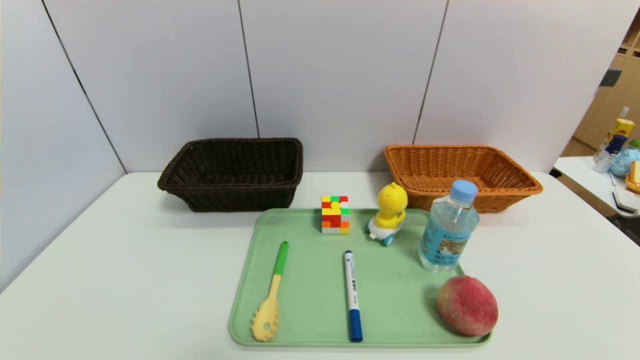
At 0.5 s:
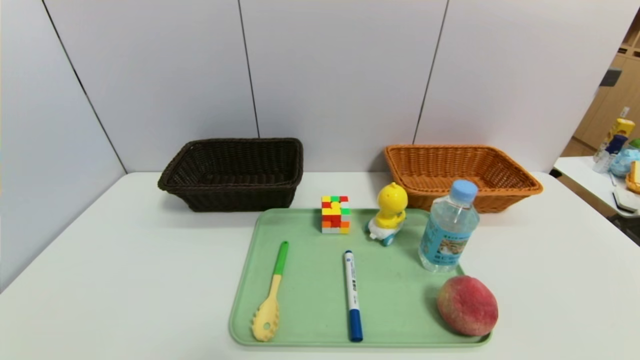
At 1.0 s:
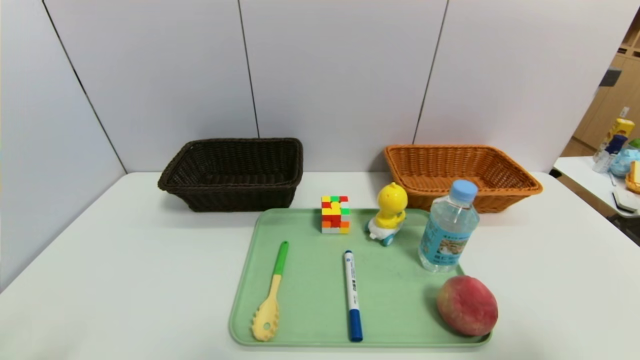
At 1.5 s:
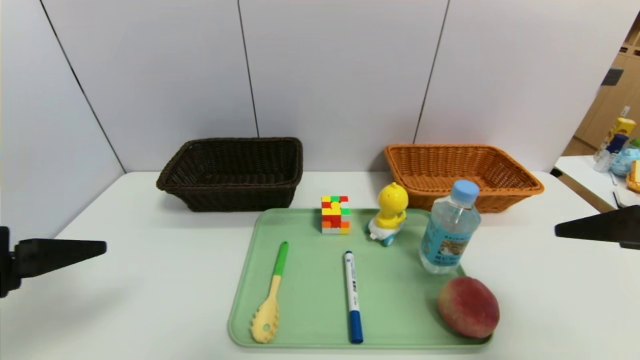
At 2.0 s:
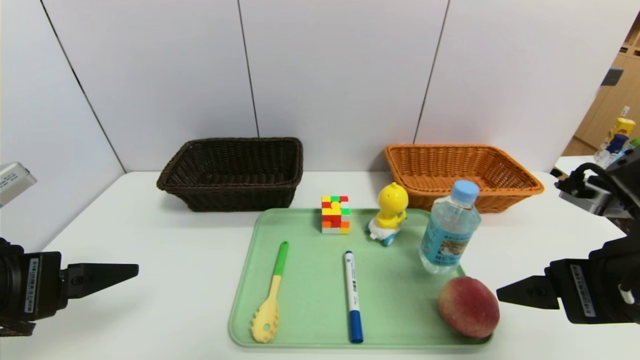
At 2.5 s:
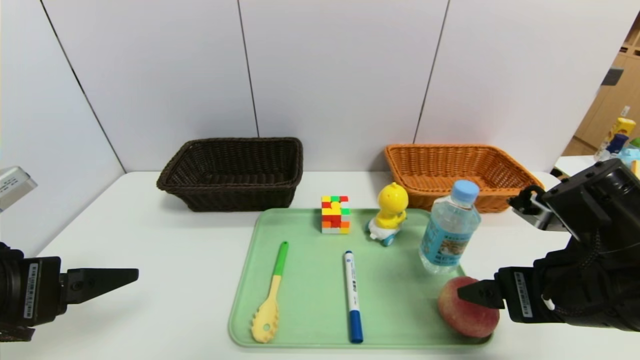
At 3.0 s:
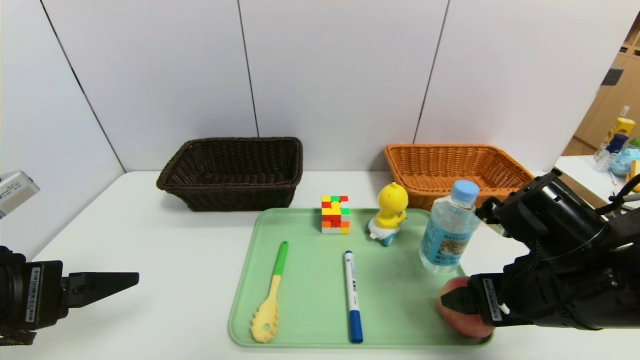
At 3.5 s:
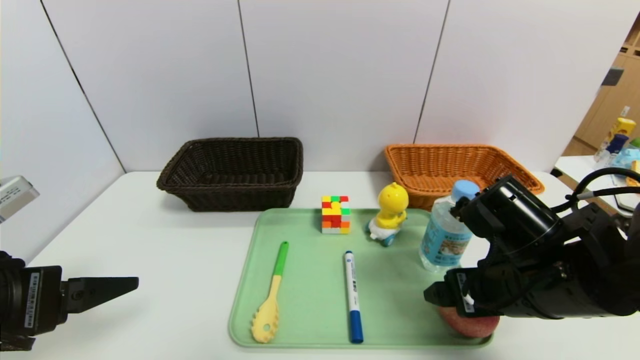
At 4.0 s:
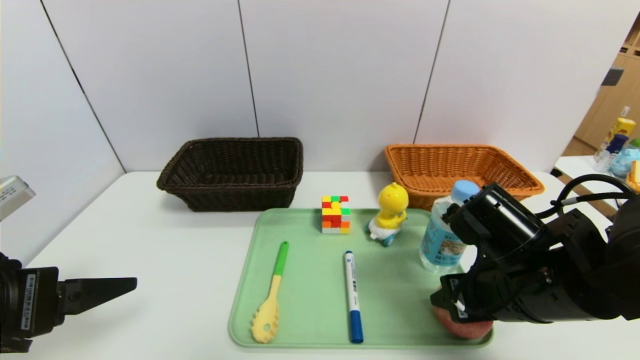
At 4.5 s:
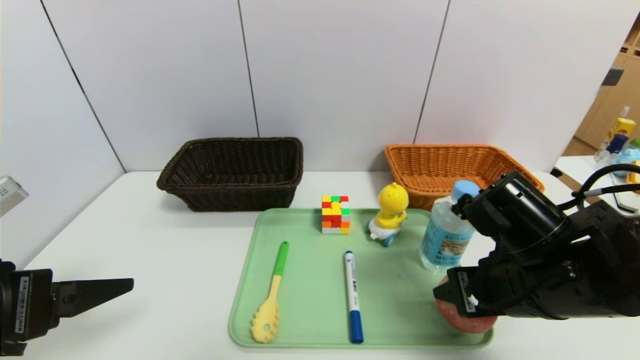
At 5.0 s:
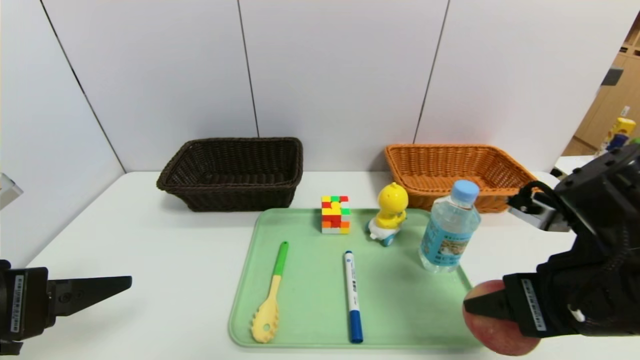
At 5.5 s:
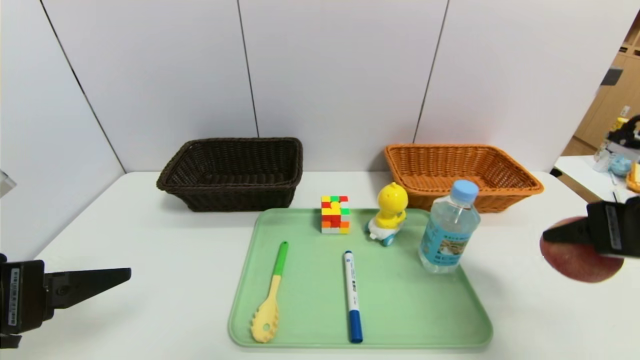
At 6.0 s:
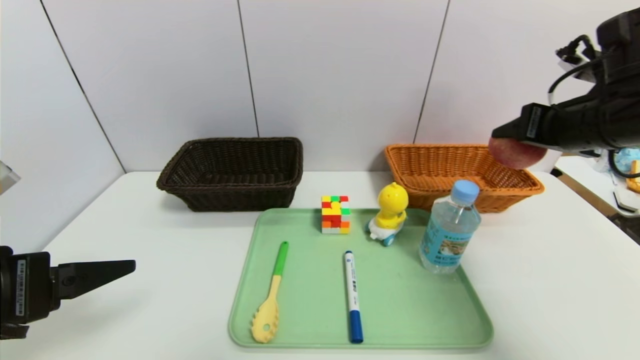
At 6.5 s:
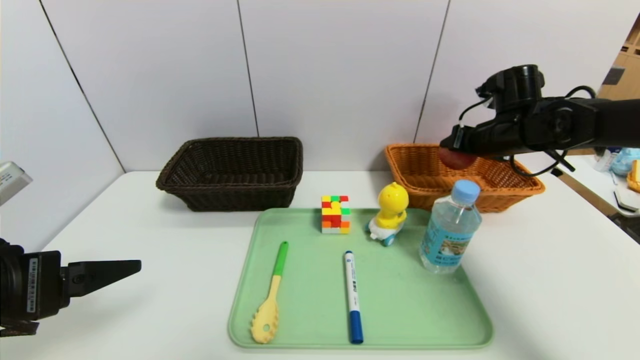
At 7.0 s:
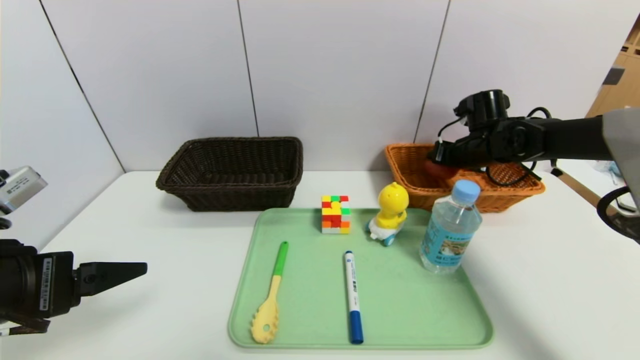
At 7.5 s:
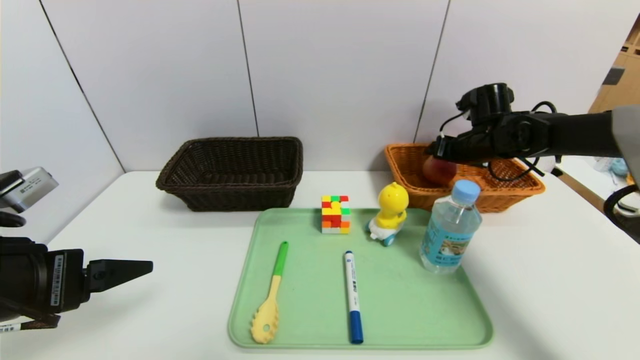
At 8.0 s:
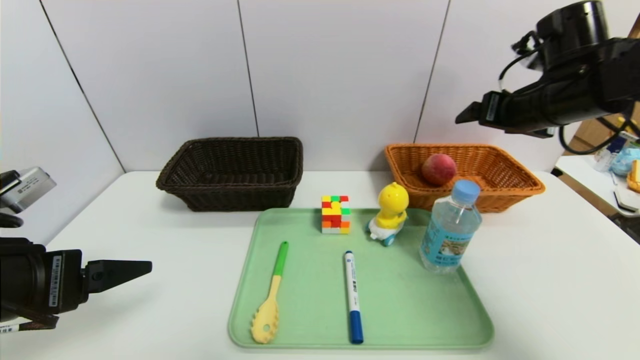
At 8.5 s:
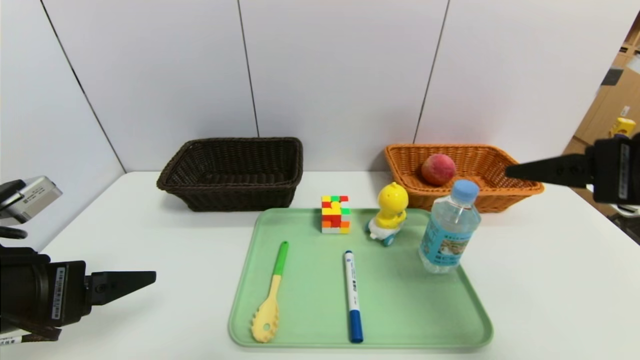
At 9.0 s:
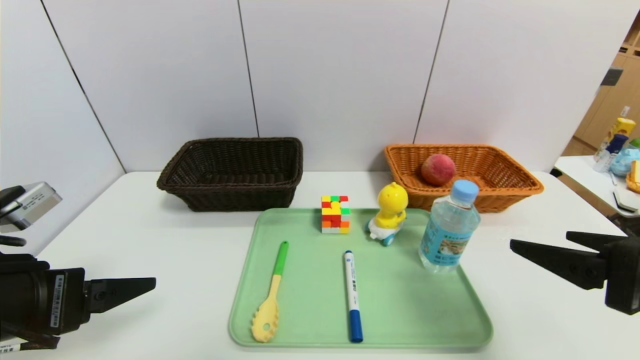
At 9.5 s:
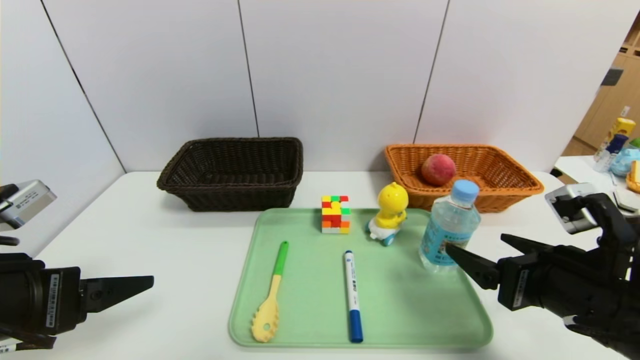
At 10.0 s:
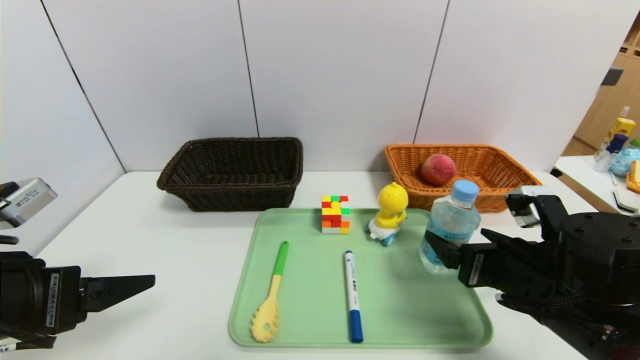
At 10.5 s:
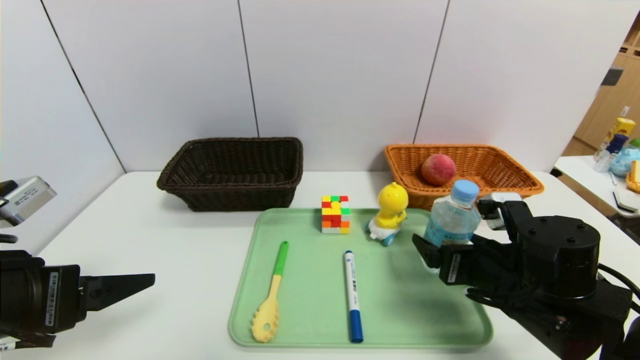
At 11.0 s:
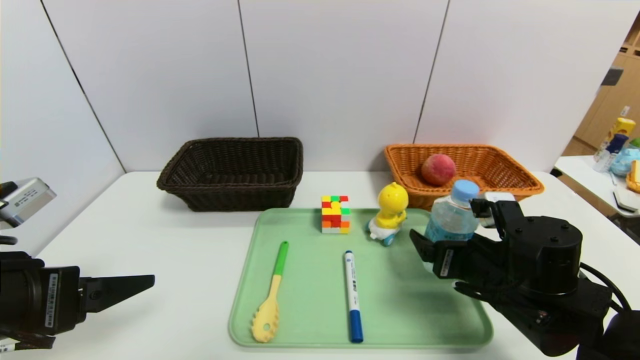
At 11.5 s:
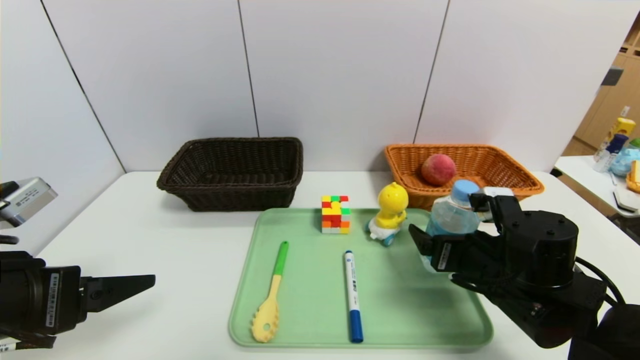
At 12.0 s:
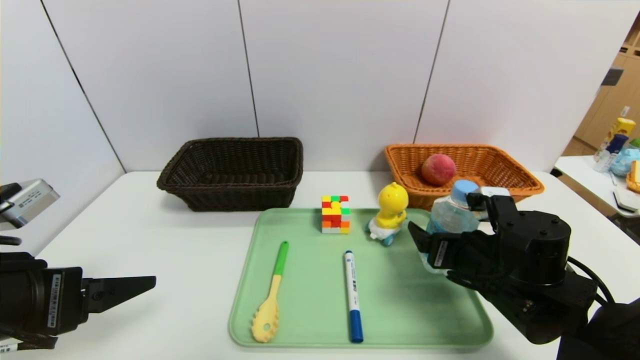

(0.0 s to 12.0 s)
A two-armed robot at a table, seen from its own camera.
Task of the whole recording: place the food in the right basket with the right gripper, and place the non food items in the left basket with the left gripper.
Step, 0.0 s - 8.0 s: Grasp the peach and put it in the right basket.
0.0 s - 2.0 s: The right gripper moves forward, upward and to the left, approximately 25 cm. Meanwhile the left gripper goes about 20 cm upward and forward.
2.0 s - 4.0 s: The right gripper shifts about 10 cm downward, to the left and forward, and closes up.
4.0 s - 6.0 s: The right gripper moves upward, to the right and forward, about 20 cm.
6.0 s - 8.0 s: The right gripper goes forward and returns, roughly 15 cm each way, and opens its fingers.
8.0 s - 10.0 s: The right gripper moves downward and backward, about 20 cm.
10.0 s - 12.0 s: The right gripper ends up some 5 cm from where it was.

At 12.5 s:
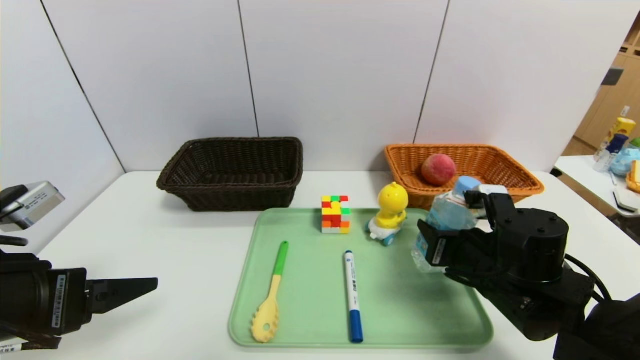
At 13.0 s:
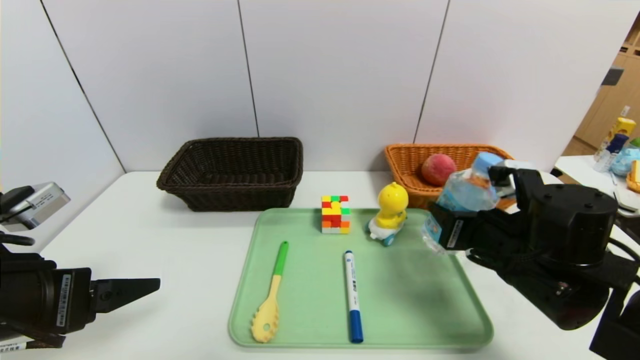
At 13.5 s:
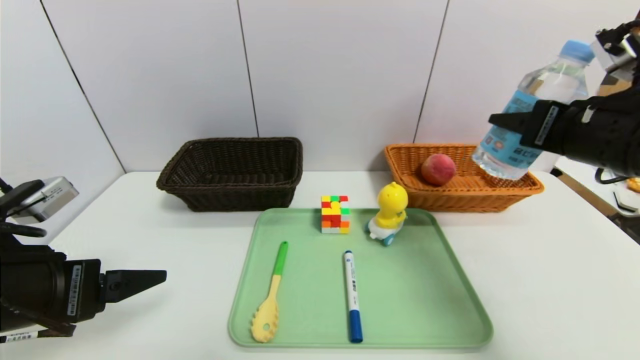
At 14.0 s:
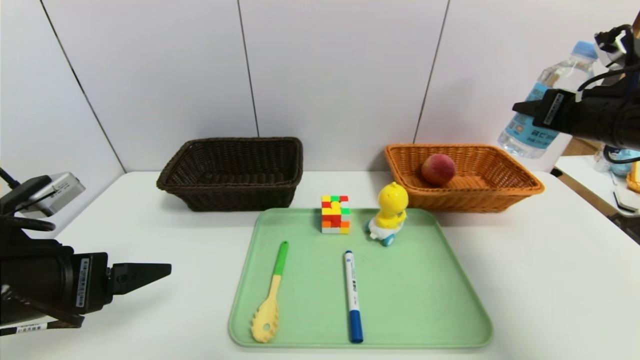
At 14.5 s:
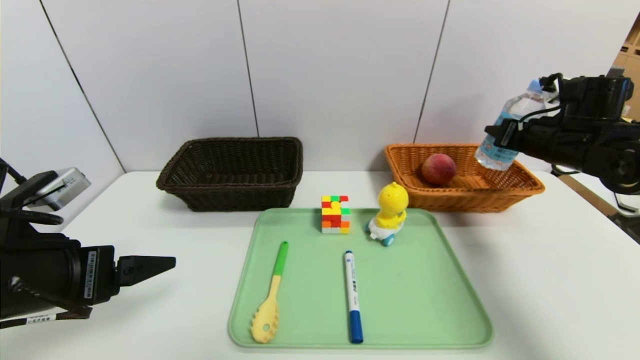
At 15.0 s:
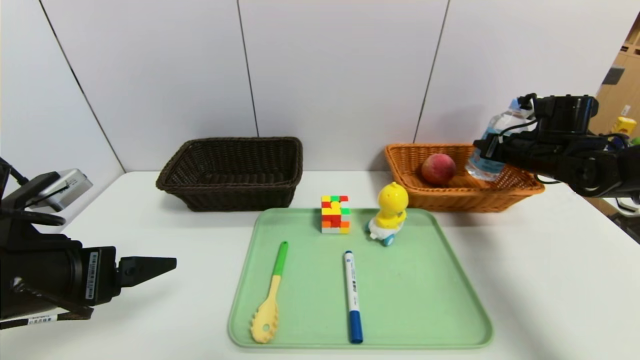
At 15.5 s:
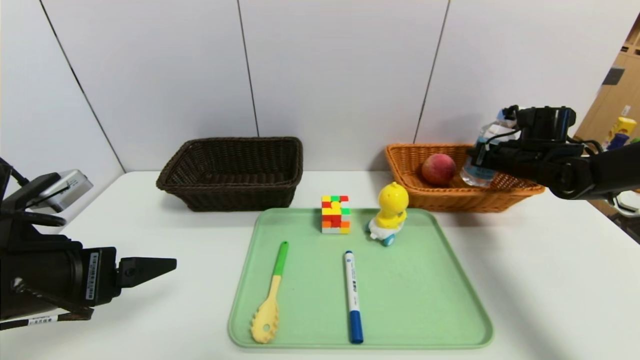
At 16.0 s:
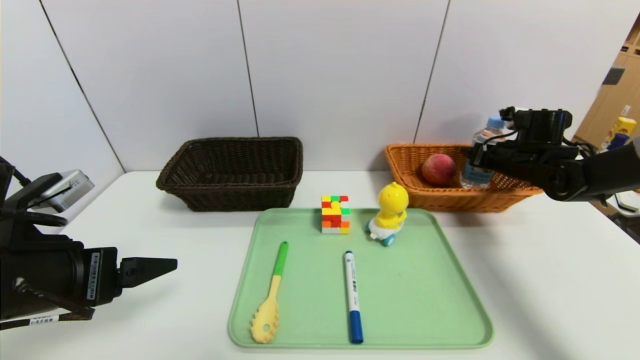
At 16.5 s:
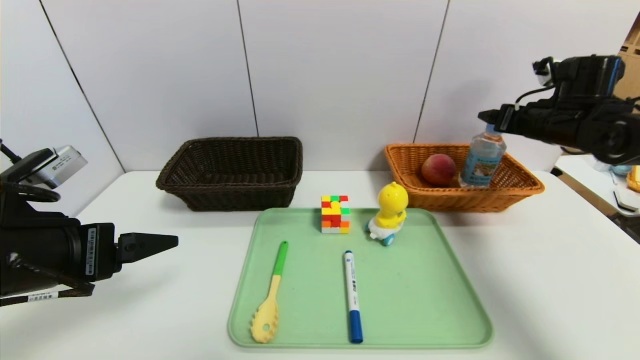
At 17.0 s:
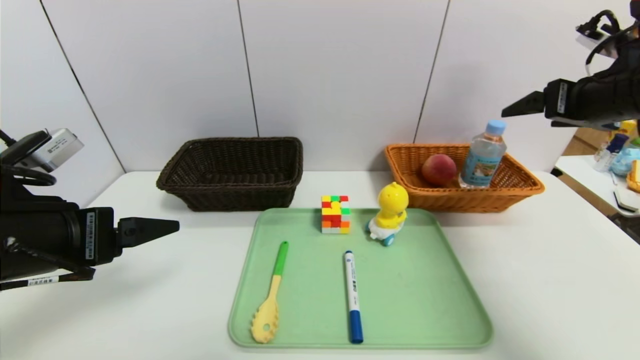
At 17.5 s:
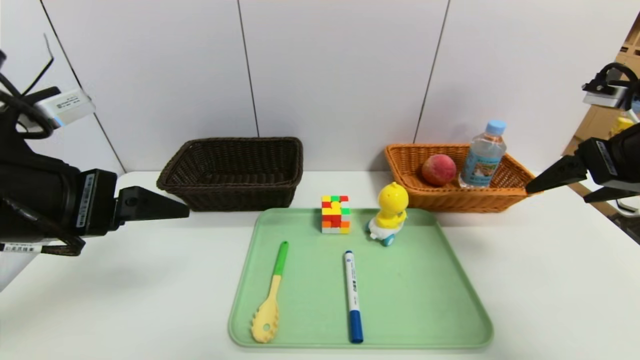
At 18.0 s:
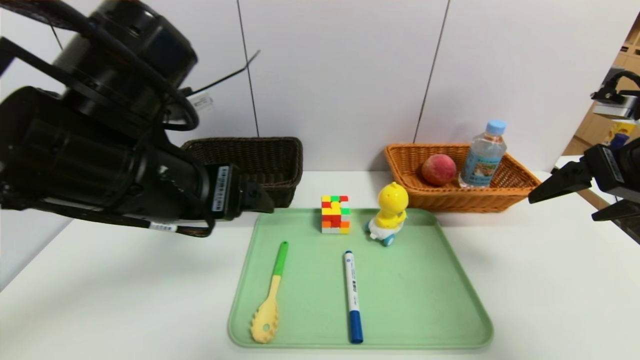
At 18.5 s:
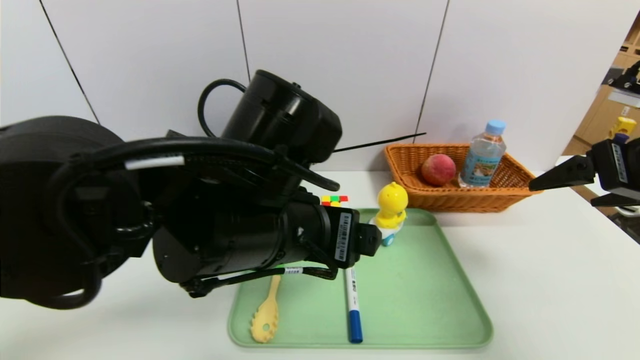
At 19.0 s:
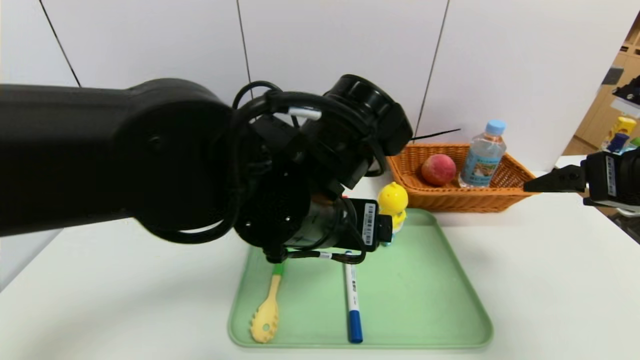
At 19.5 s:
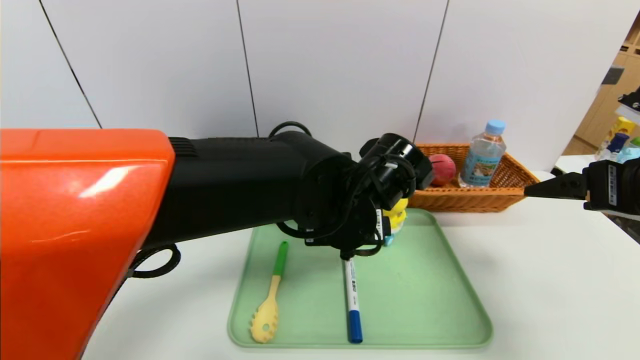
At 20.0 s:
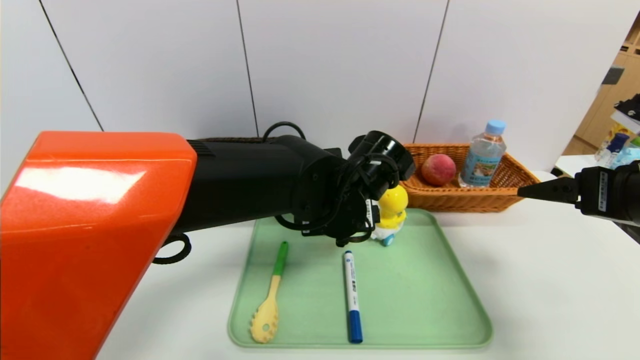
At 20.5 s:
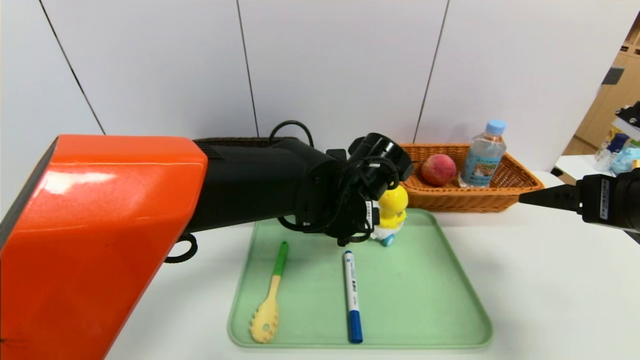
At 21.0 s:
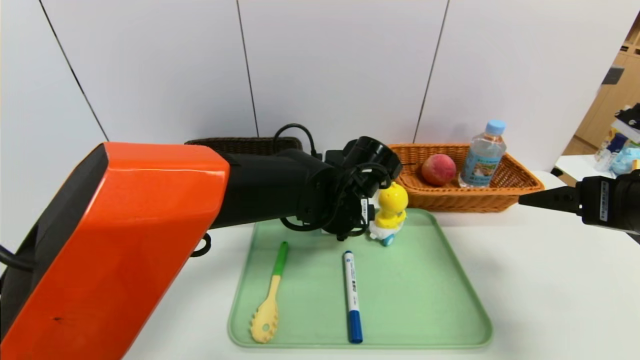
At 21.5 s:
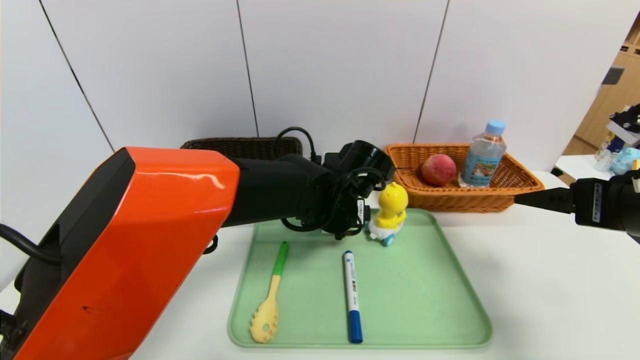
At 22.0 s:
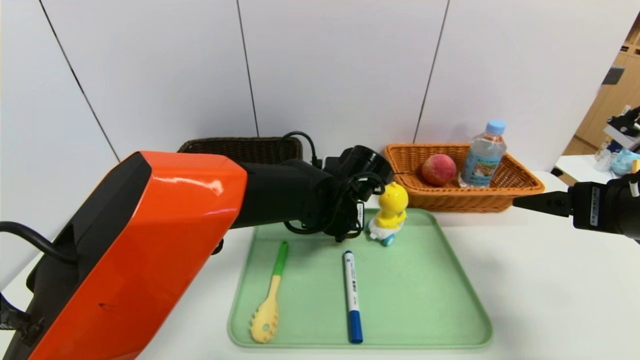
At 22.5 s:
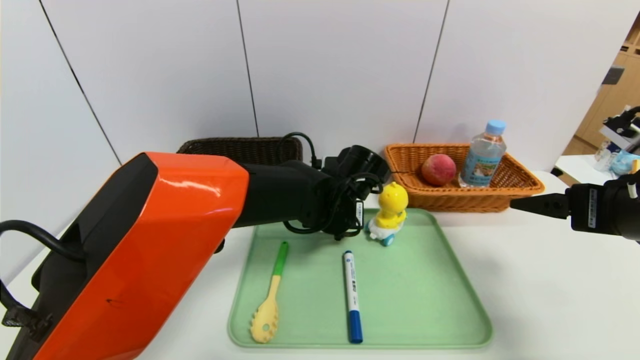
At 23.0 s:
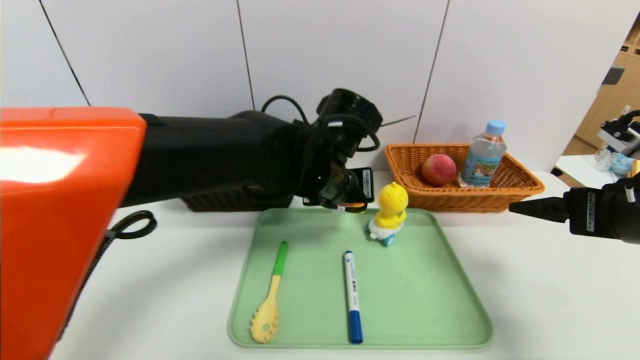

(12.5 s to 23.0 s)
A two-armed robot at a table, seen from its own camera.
Task of the whole recording: place the food in the right basket with the right gripper, and place the non food items in the left basket with the left gripper.
Step, 12.5 s - 16.0 s: Grasp the soda water and put it in the right basket.
12.5 s - 14.5 s: The right gripper travels to the right, forward and upward by roughly 25 cm.
14.5 s - 16.5 s: The right gripper goes downward and returns, about 5 cm each way, and opens.
16.5 s - 19.0 s: The left gripper heads to the right, covering roughly 25 cm. The right gripper goes roughly 20 cm backward.
19.0 s - 21.0 s: The left gripper heads forward and downward, covering some 15 cm.
21.0 s - 23.0 s: The left gripper moves upward, about 5 cm, and closes up.
